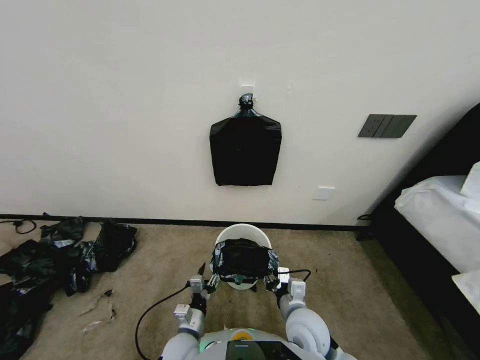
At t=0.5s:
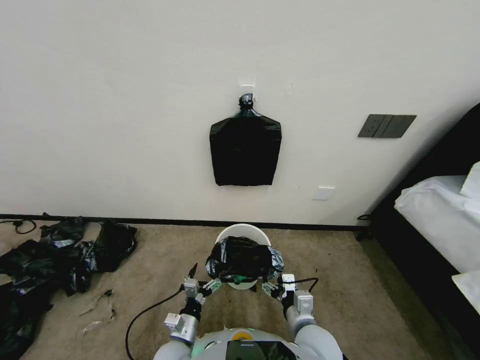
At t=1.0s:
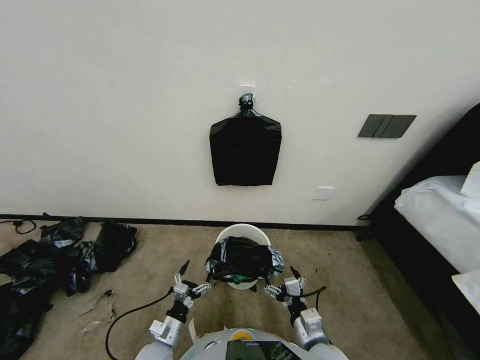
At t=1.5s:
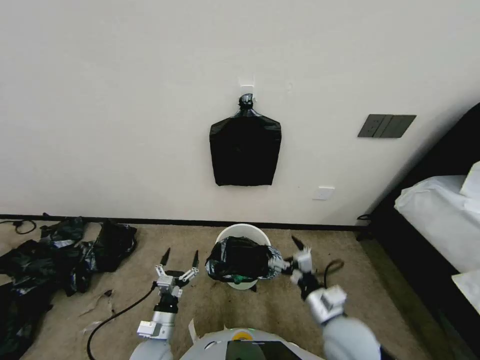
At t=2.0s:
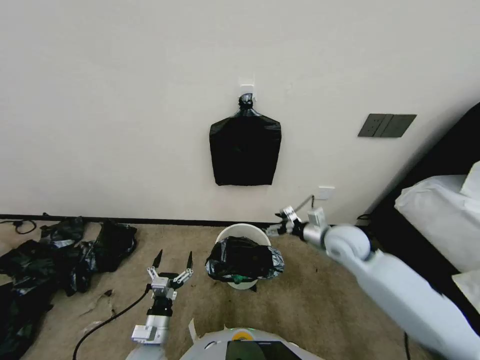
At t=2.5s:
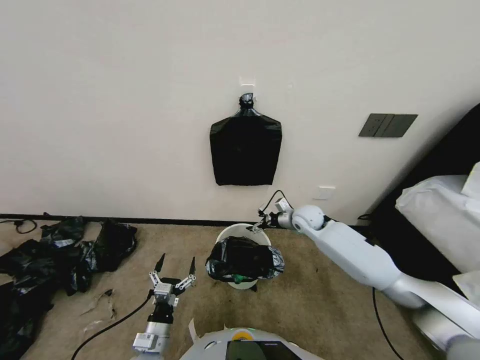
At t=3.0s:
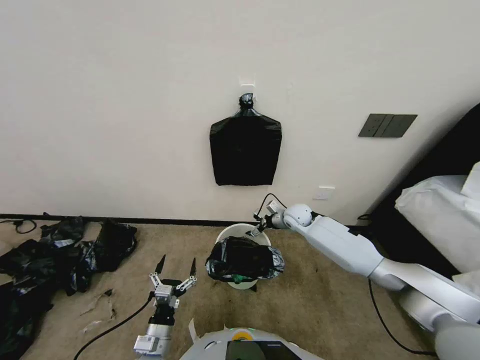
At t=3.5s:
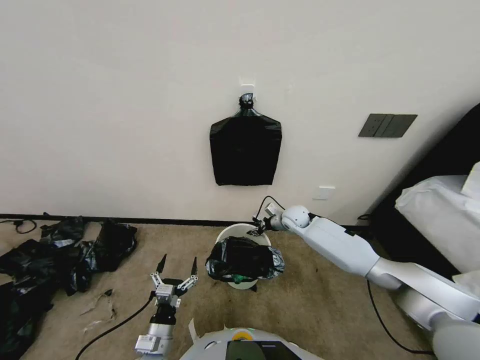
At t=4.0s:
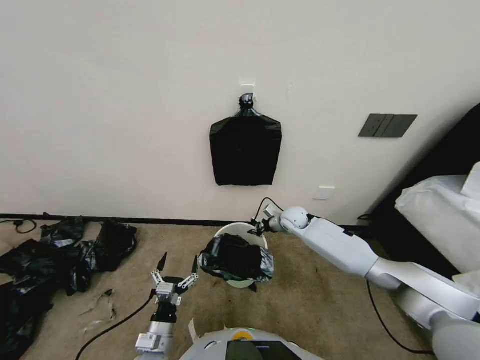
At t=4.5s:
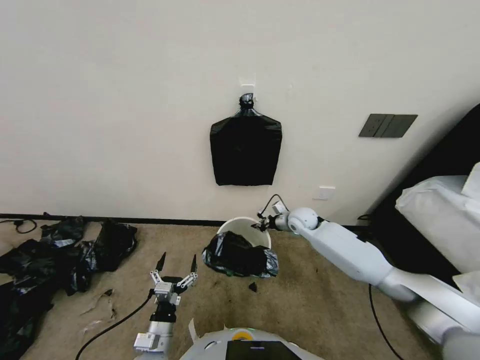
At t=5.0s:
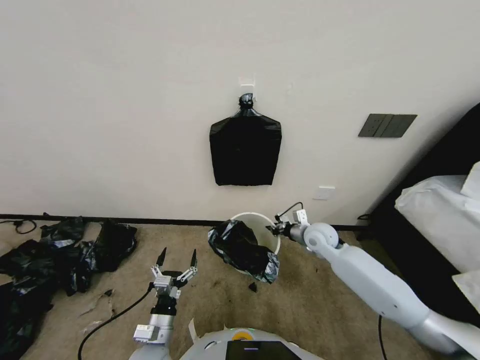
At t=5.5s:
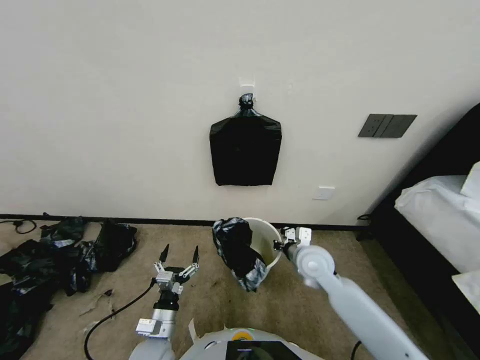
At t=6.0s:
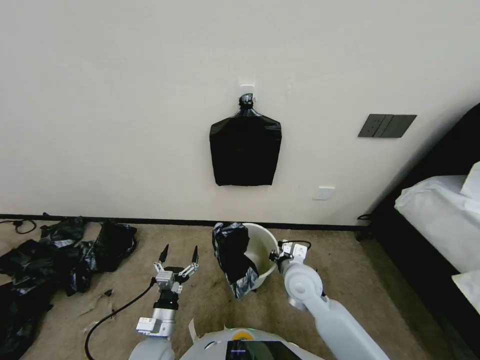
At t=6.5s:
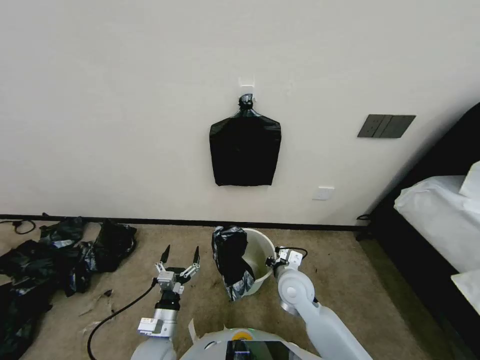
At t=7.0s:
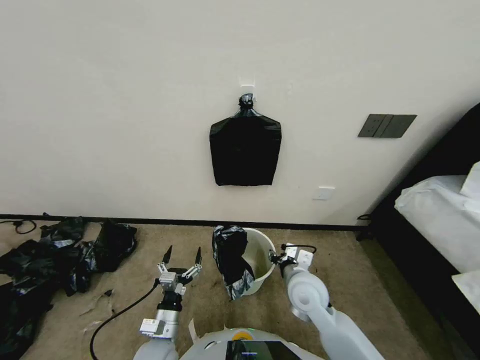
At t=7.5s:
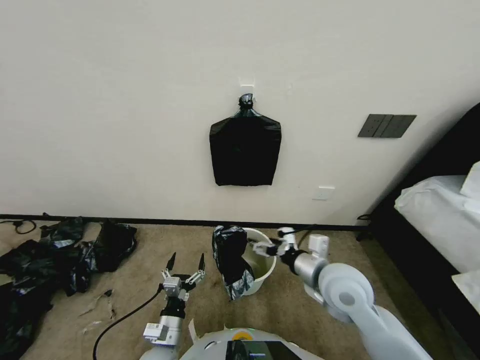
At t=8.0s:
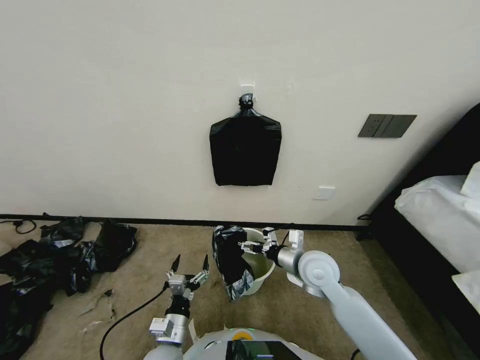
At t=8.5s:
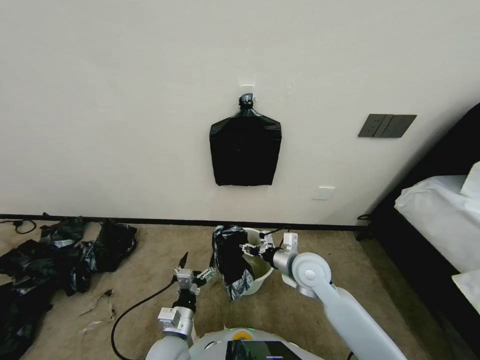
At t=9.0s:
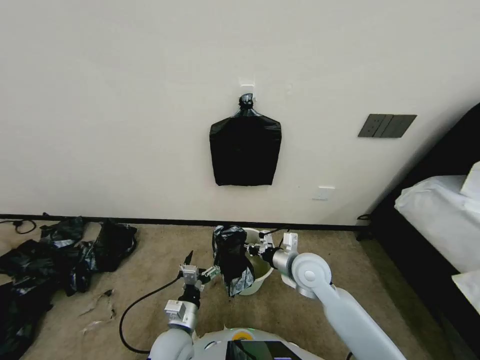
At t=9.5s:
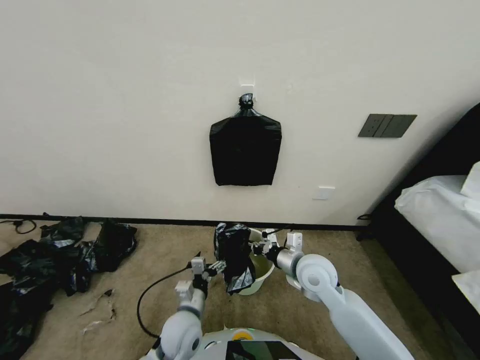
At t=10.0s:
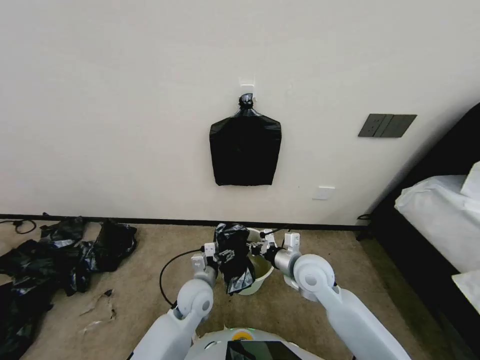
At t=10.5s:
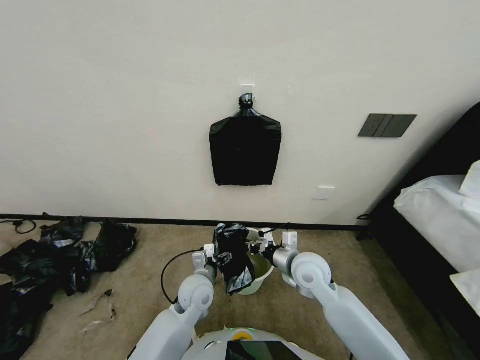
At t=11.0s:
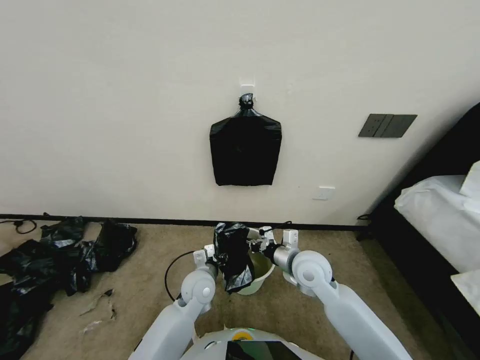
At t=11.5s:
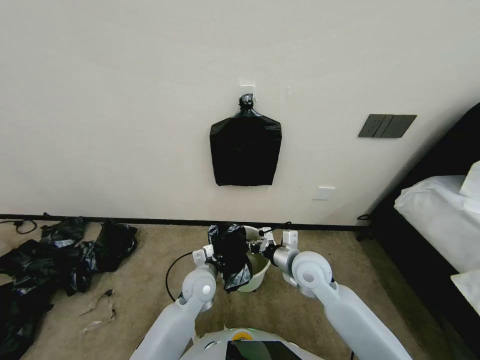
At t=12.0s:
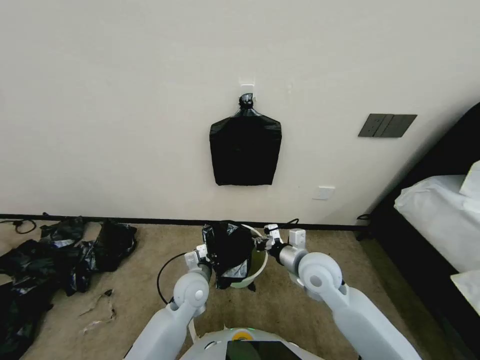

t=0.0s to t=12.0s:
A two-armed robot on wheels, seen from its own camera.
Task of the whole recording: Place a trash bag onto the trash bin.
t=0.0s to t=2.0s: The left gripper travels to the left by roughly 10 cm, and opens; the right gripper heads forward, upward and to the right, covering about 20 cm, and opens its fingers.
t=2.0s to t=4.0s: The right gripper travels forward and downward by approximately 20 cm, and closes its fingers.
t=4.0s to t=6.0s: The right gripper shifts approximately 20 cm backward.
t=6.0s to t=8.0s: The right gripper opens its fingers.
t=8.0s to t=10.0s: The right gripper closes its fingers. Meanwhile the left gripper heads forward and to the right, covering some 15 cm.
t=10.0s to t=12.0s: The left gripper closes its fingers.

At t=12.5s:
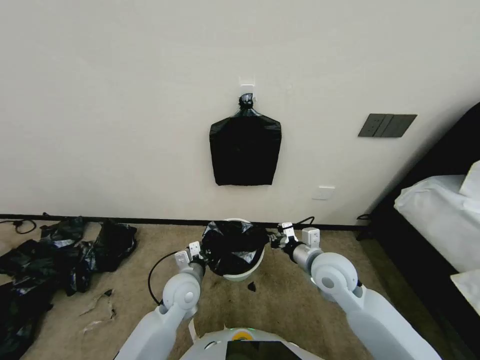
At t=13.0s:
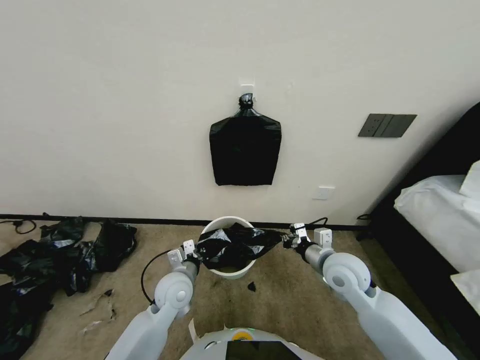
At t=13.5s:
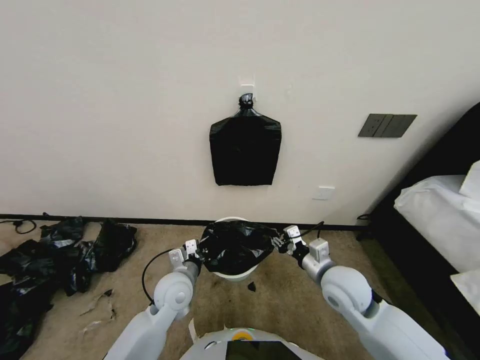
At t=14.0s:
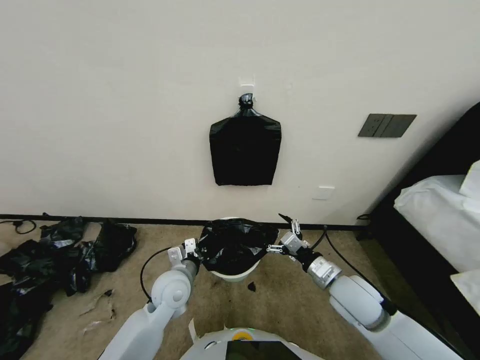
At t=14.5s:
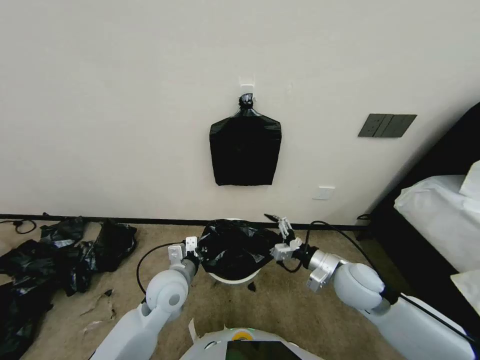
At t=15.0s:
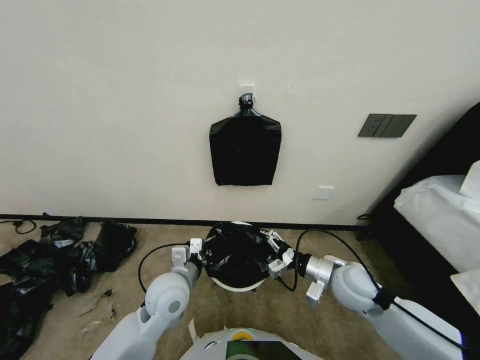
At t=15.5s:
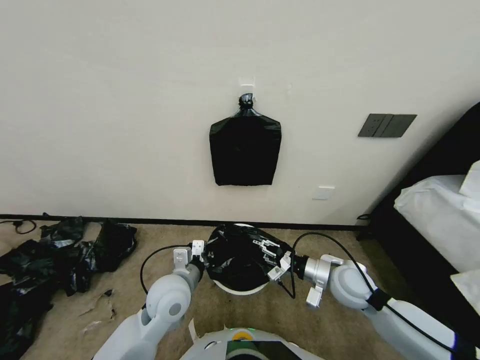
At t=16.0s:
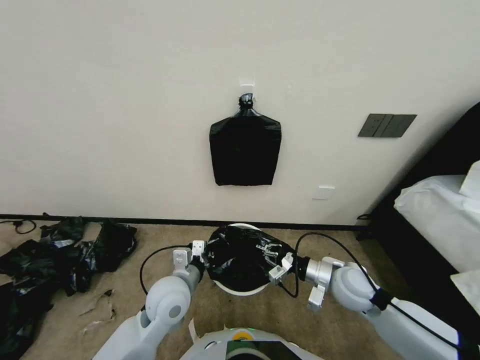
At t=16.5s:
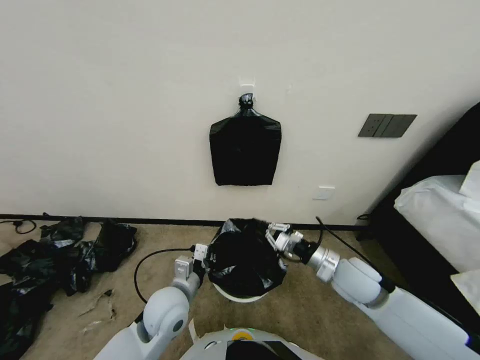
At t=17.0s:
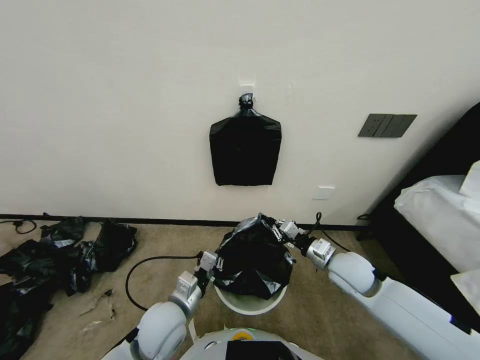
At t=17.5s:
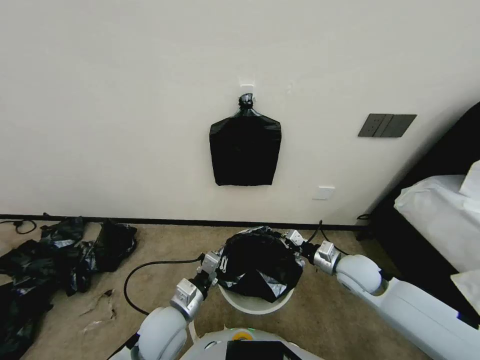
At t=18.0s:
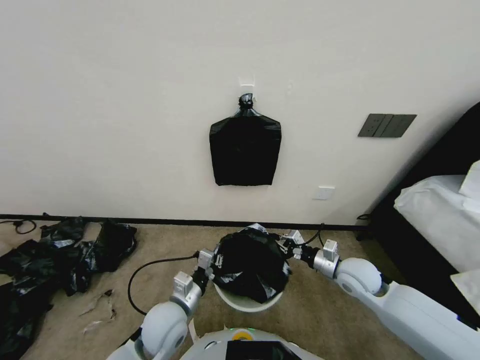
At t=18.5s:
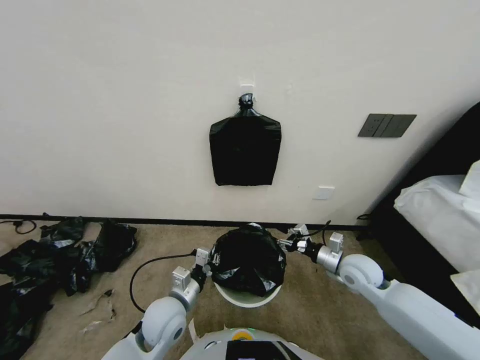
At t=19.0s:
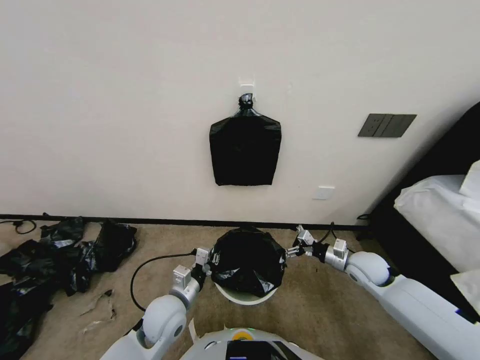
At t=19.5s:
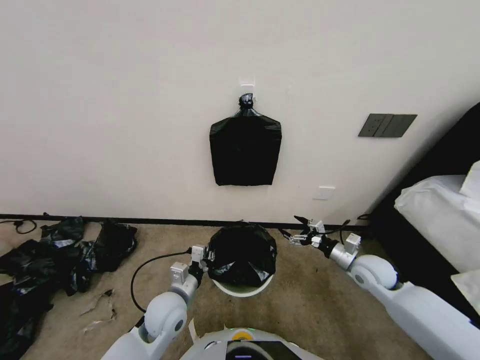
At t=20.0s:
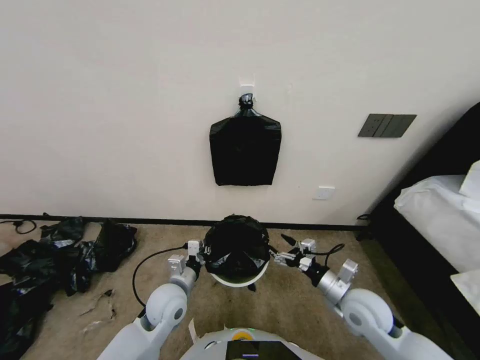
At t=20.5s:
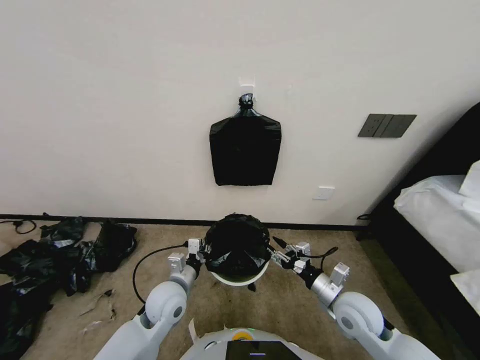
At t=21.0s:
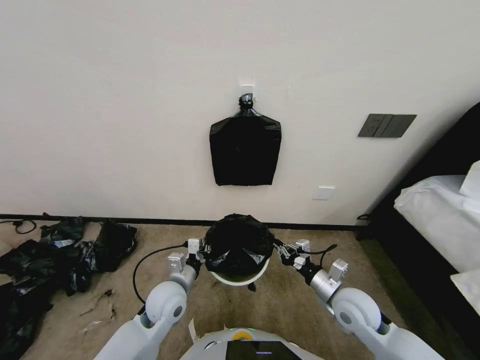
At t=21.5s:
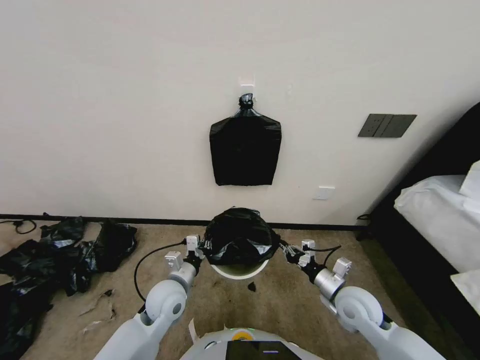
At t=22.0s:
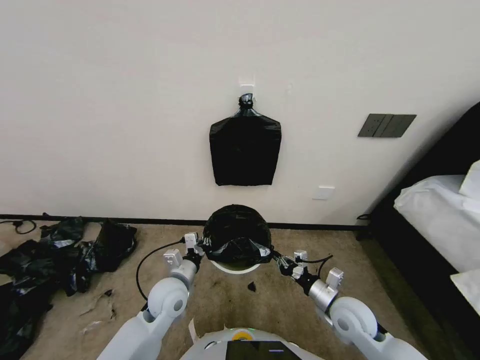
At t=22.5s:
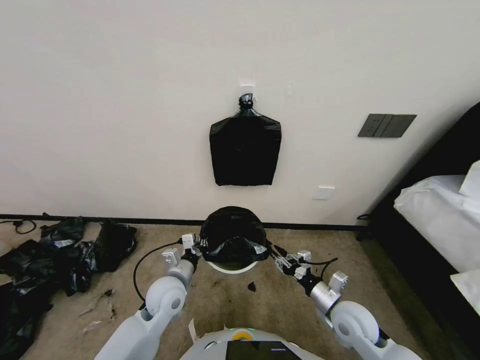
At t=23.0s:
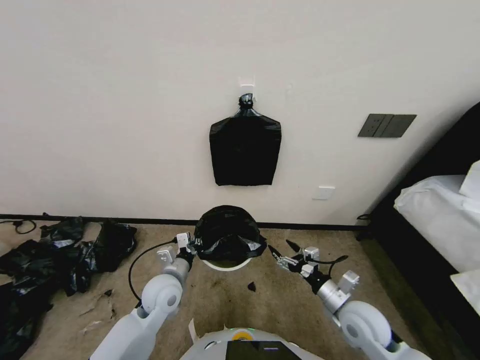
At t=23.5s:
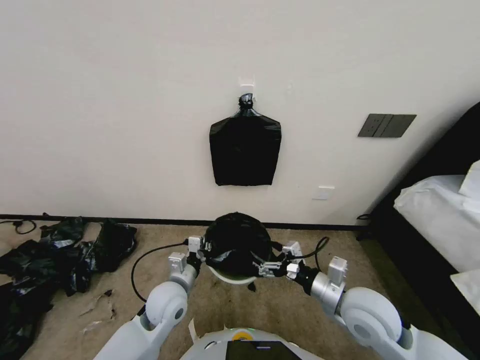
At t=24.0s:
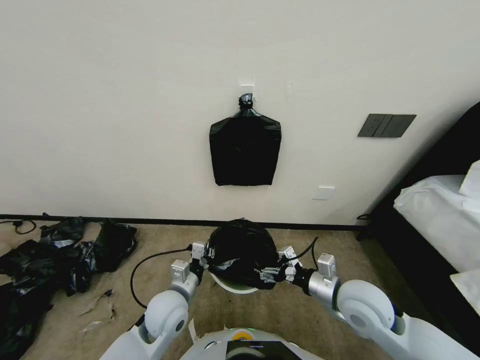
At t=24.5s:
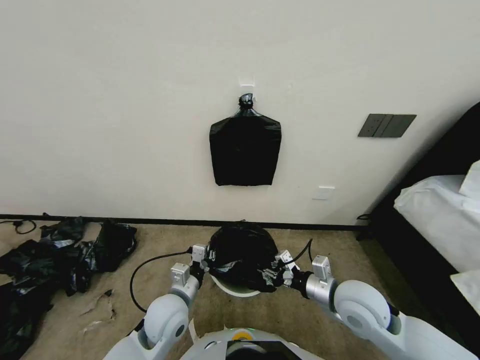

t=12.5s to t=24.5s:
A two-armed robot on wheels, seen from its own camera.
Task of the whole recording: Place a trash bag onto the trash bin.
t=12.5s to t=14.5s: The left gripper ends up roughly 5 cm from where it was, while the right gripper shifts roughly 5 cm to the right, and opens its fingers.
t=14.5s to t=16.5s: The right gripper closes.
t=16.5s to t=18.5s: The right gripper travels to the right by some 5 cm, and opens up.
t=18.5s to t=20.5s: The right gripper shifts roughly 10 cm backward, and opens and closes again.
t=20.5s to t=22.5s: The grippers move only a little.
t=22.5s to t=24.5s: The right gripper shifts roughly 10 cm upward, and opens, then closes once more.

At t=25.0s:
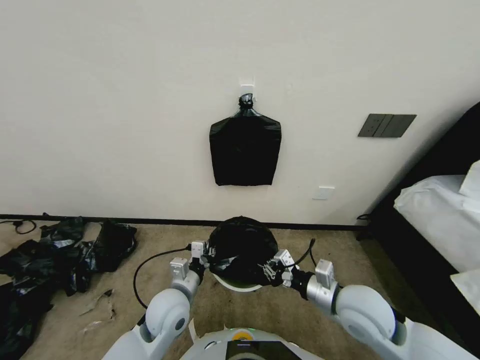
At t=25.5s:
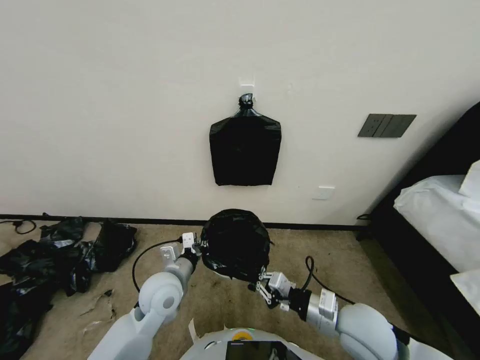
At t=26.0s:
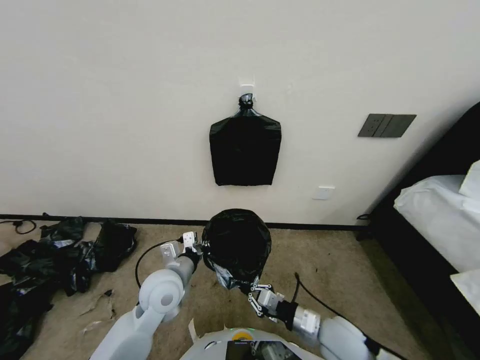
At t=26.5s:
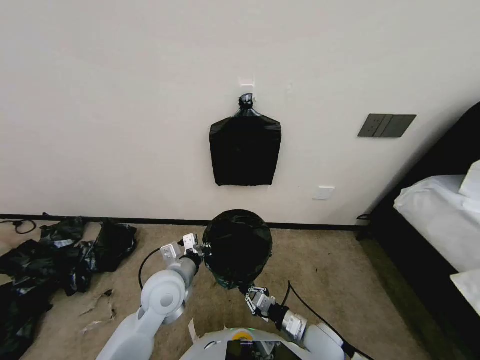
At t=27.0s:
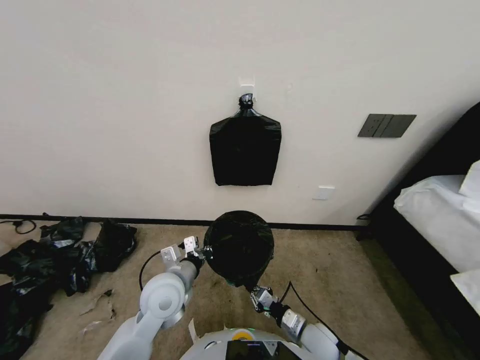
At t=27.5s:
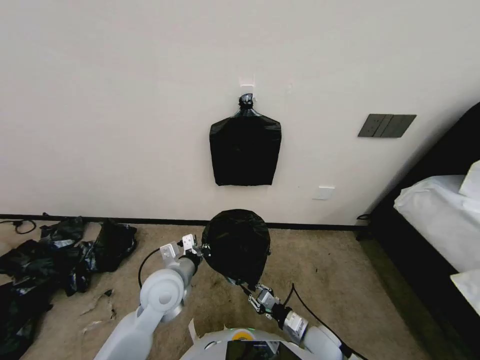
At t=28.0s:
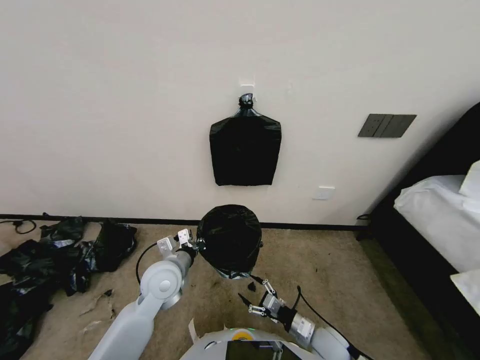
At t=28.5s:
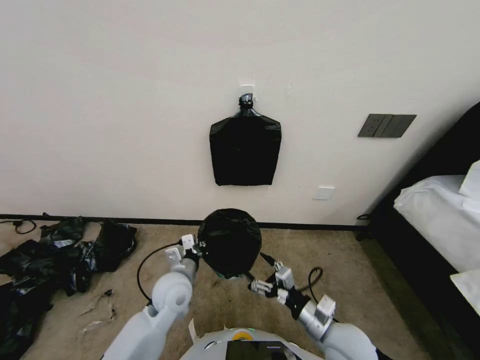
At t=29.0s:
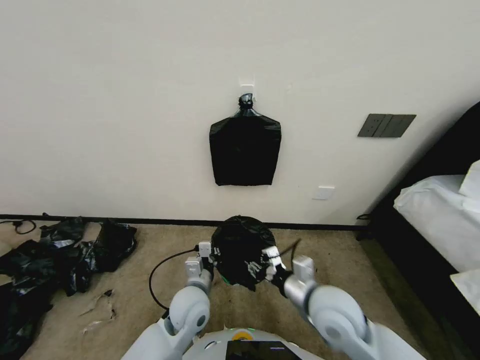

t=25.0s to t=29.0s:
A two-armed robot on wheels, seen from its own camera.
Task of the whole recording: Place a trash bag onto the trash bin.
t=25.0s to t=27.0s: The left gripper ends up about 5 cm from where it was; the right gripper shifts about 20 cm downward.
t=27.0s to t=29.0s: The right gripper shifts some 20 cm upward, and opens. The left gripper is displaced downward by approximately 5 cm.
